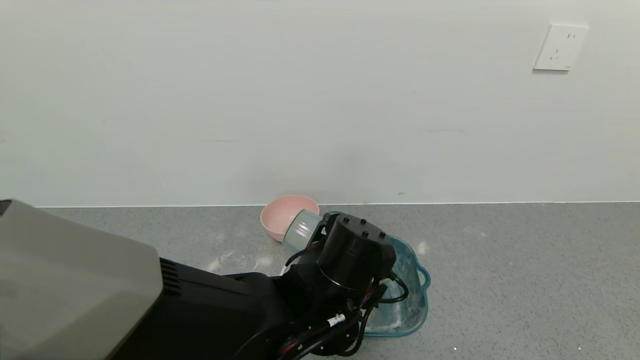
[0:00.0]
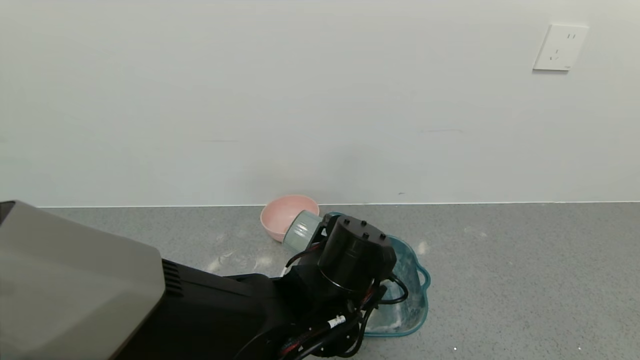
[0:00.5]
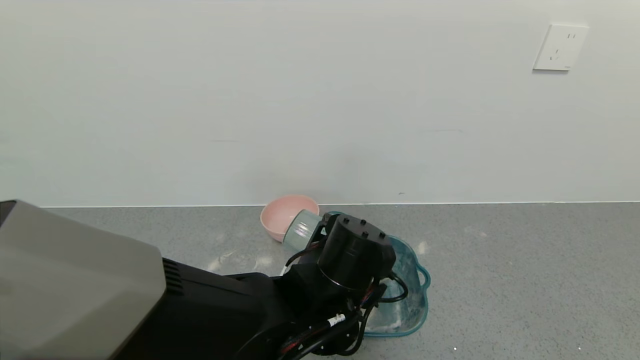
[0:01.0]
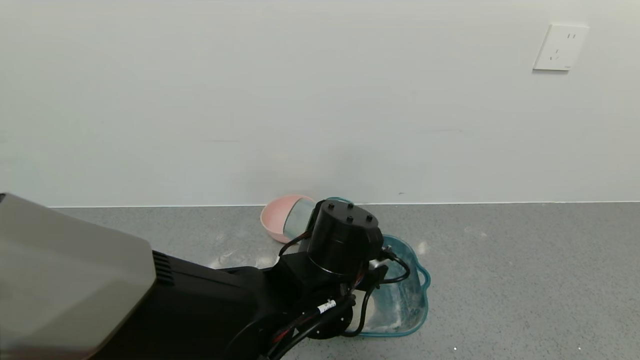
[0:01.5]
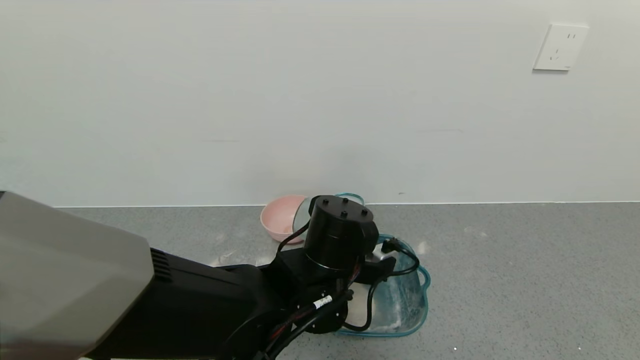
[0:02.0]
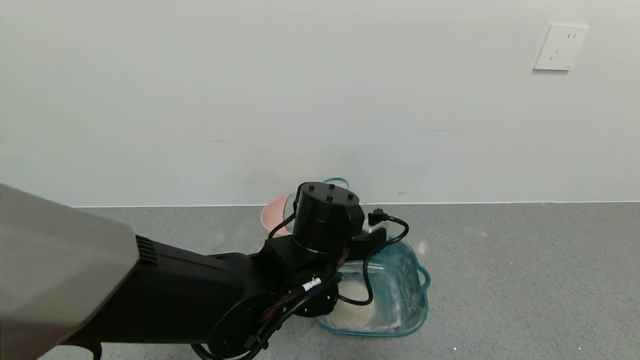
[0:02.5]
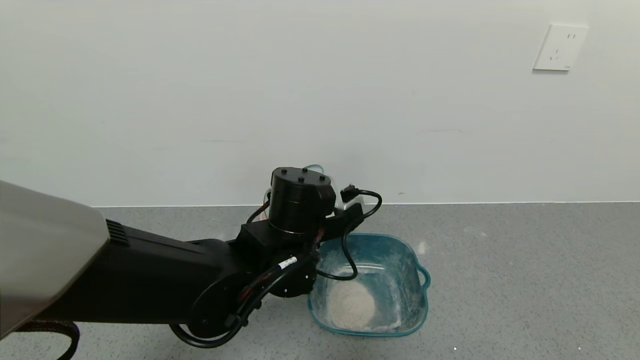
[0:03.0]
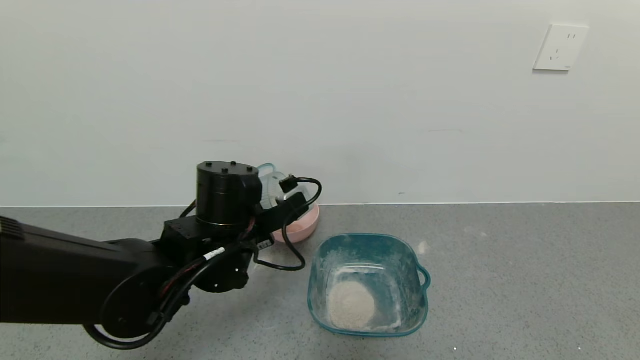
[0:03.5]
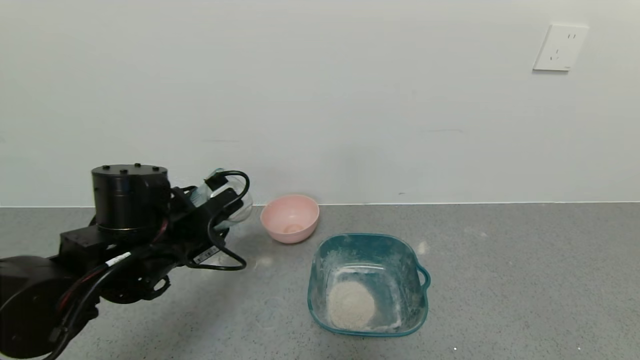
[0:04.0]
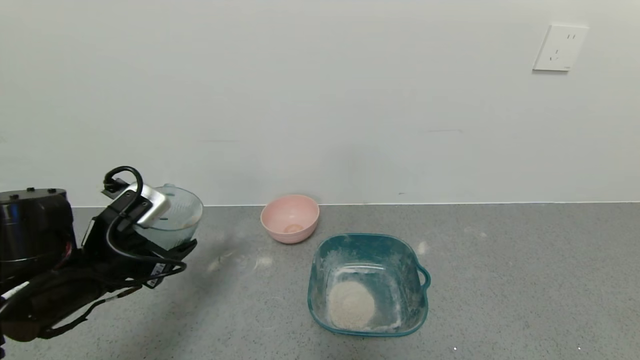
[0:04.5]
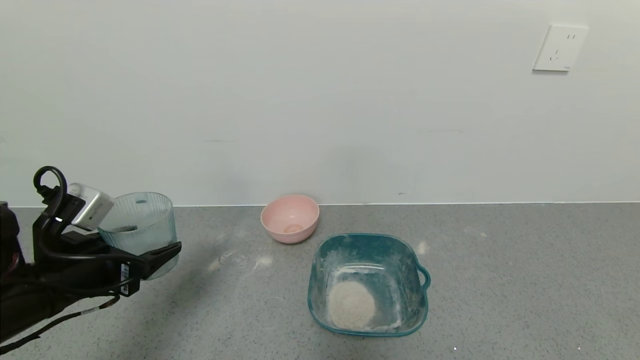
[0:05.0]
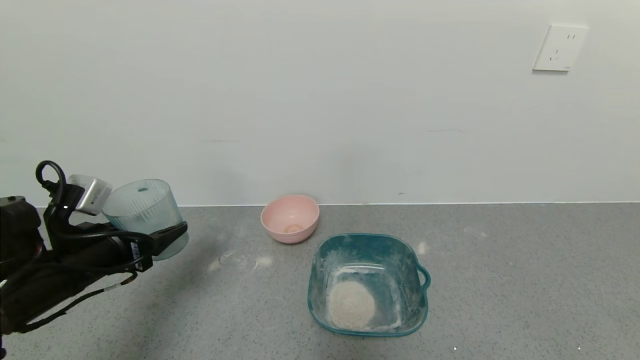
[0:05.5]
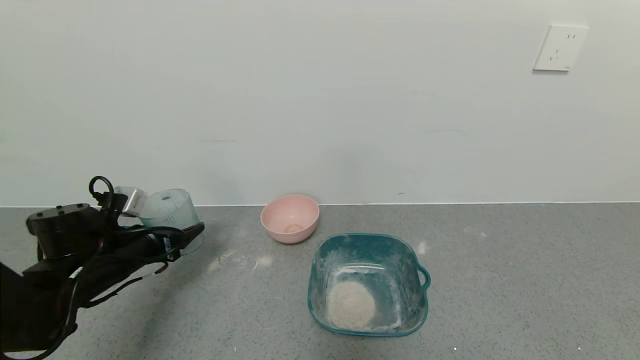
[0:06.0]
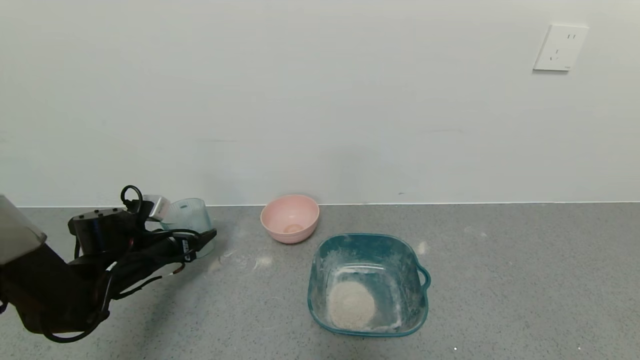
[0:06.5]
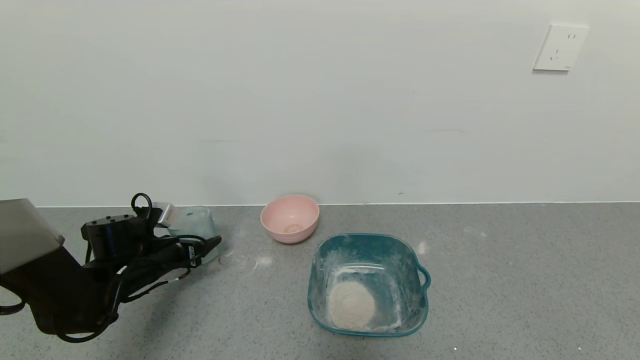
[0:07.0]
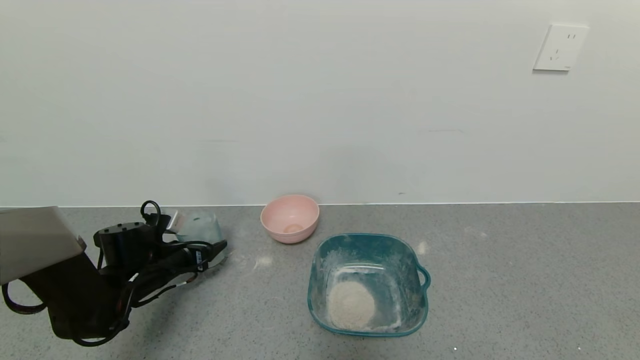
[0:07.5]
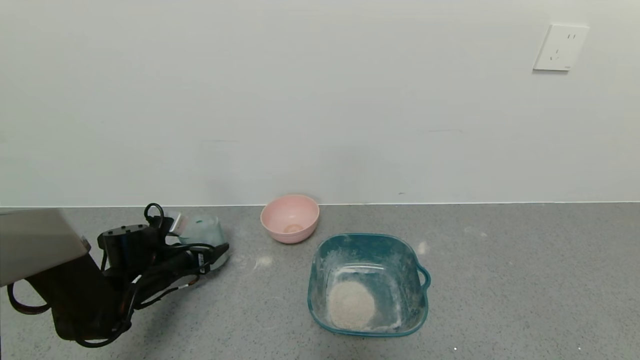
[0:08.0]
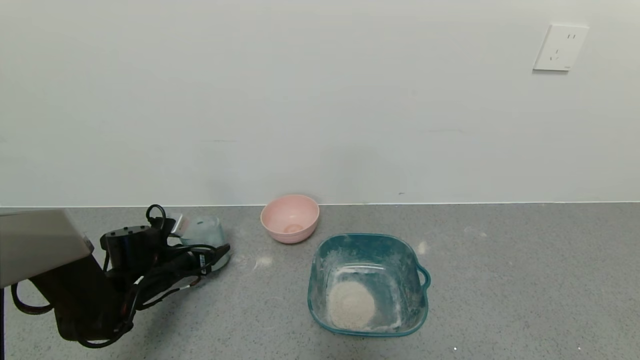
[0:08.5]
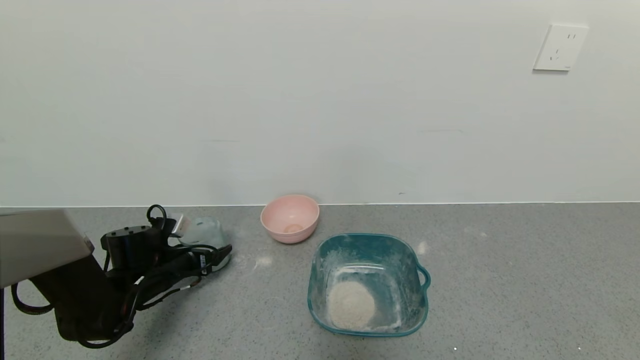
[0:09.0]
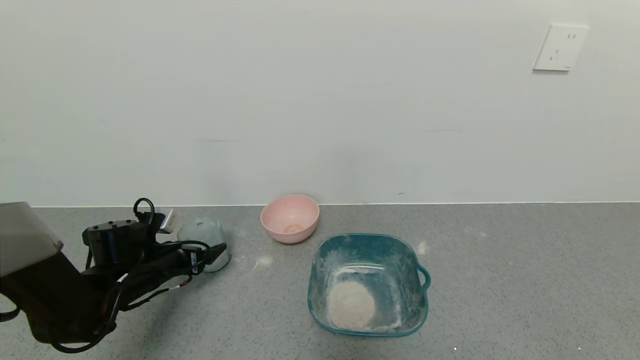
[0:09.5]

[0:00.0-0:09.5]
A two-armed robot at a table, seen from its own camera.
Task of the whole recording: use a gripper to pick up the cup and pour the powder into a bowl or tray.
Step, 0:00.0 to 0:02.0: Pour the powder into the pink bowl with the left gripper.
0:00.0 to 0:02.0: There are only small adjustments of the grippers.
0:02.0 to 0:04.0: The left gripper is displaced to the left by about 20 cm.
0:04.0 to 0:05.5: The left gripper is displaced to the left by some 10 cm.
0:05.5 to 0:07.5: The left gripper travels downward and forward by approximately 15 cm.
0:07.5 to 0:09.5: The left gripper opens its fingers.

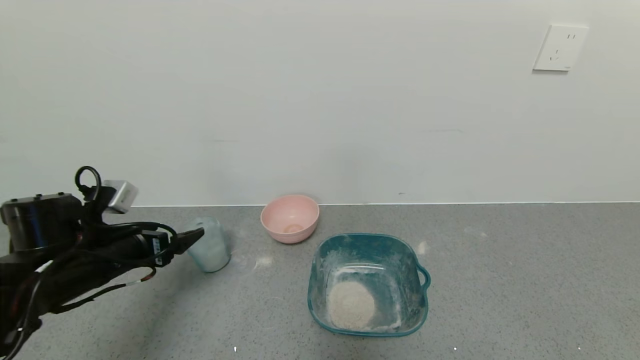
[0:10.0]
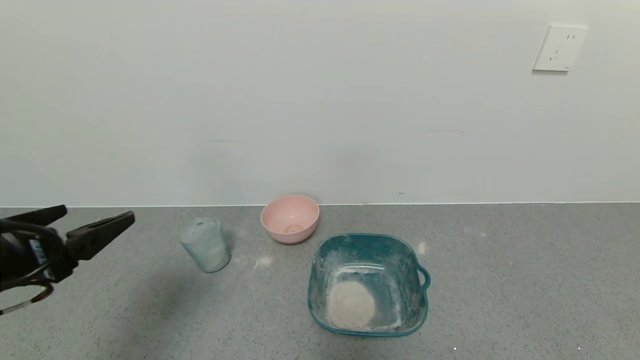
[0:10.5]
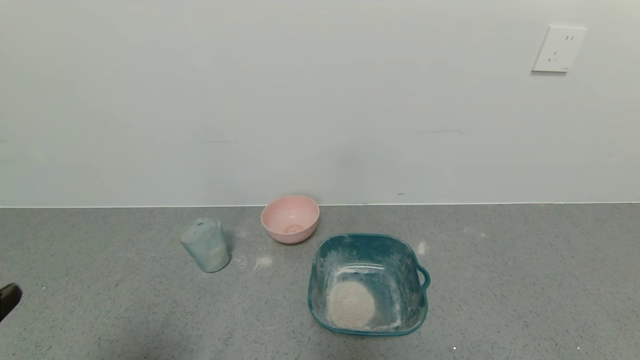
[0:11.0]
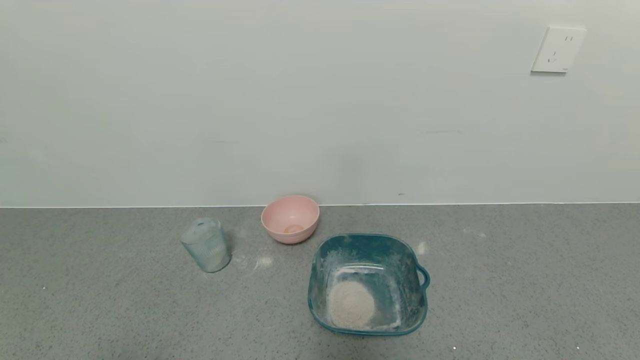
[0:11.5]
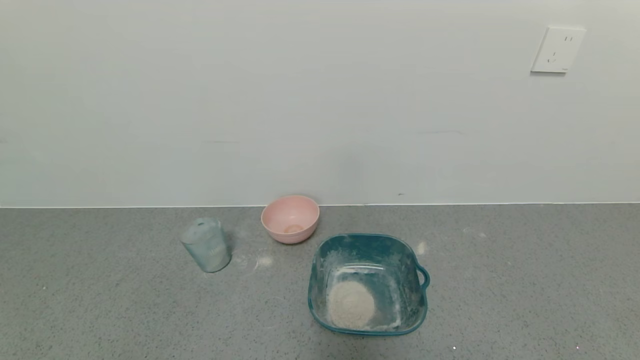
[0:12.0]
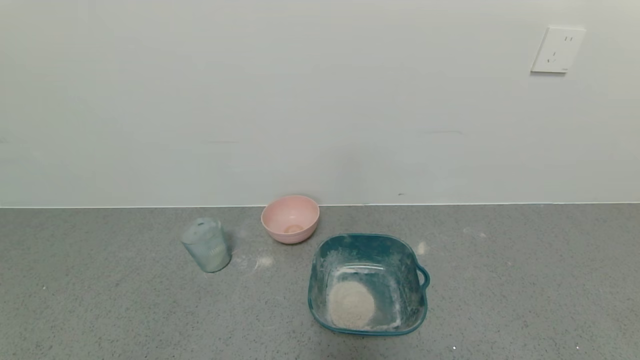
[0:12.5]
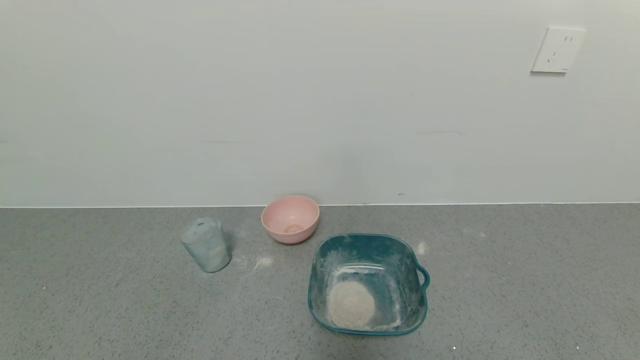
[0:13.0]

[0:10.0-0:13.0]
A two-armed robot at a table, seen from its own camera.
Task of the whole recording: use a gripper to pick up the cup and pour the powder into a bowl or tray.
0:10.0 to 0:11.5: The left gripper travels backward by some 30 cm.
